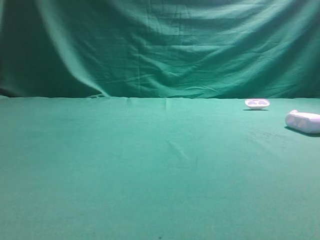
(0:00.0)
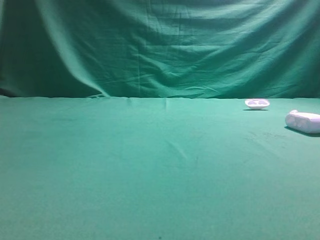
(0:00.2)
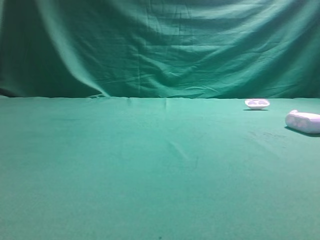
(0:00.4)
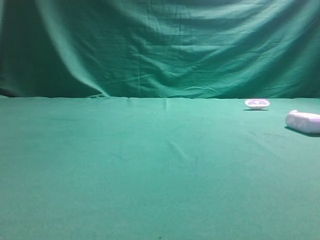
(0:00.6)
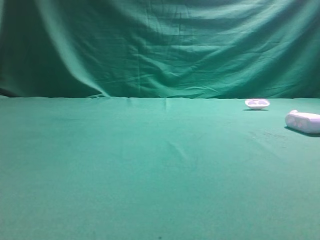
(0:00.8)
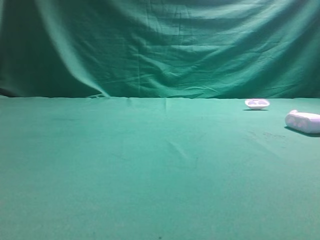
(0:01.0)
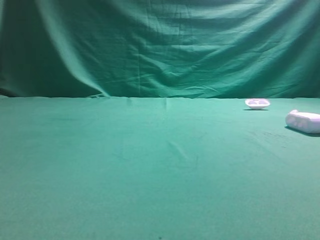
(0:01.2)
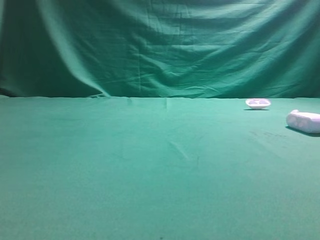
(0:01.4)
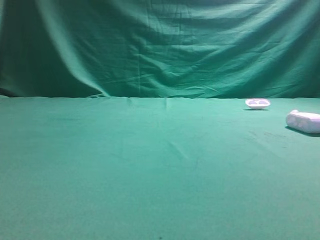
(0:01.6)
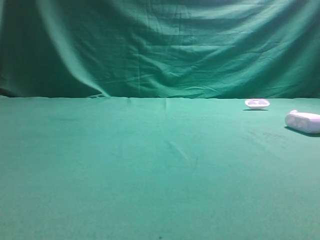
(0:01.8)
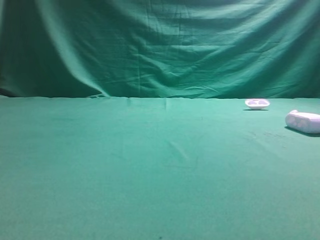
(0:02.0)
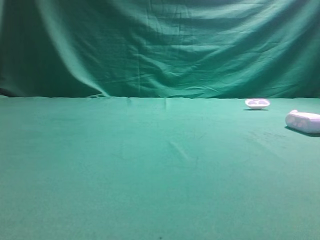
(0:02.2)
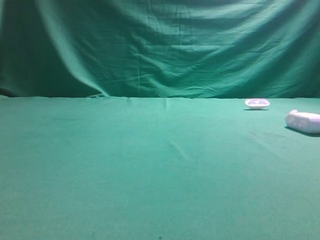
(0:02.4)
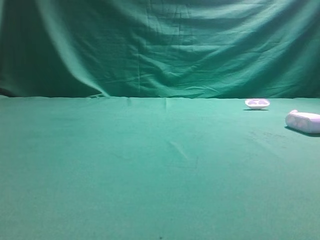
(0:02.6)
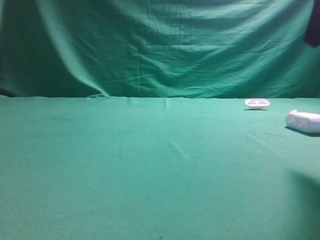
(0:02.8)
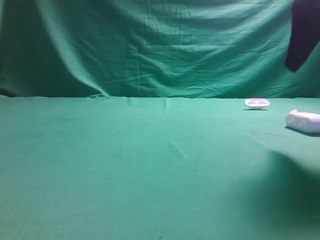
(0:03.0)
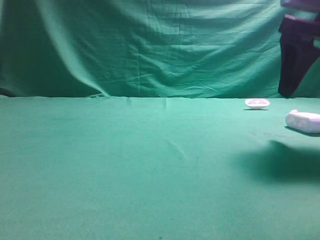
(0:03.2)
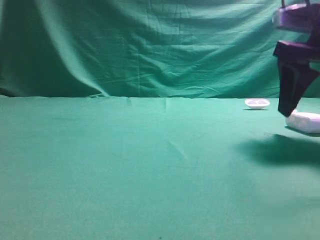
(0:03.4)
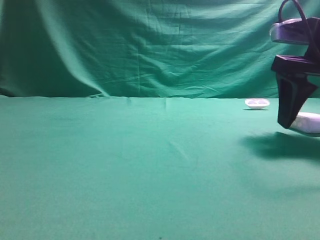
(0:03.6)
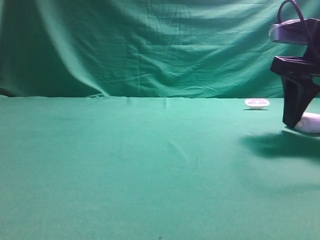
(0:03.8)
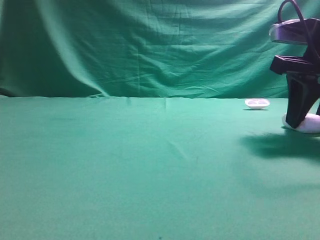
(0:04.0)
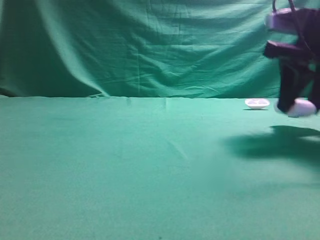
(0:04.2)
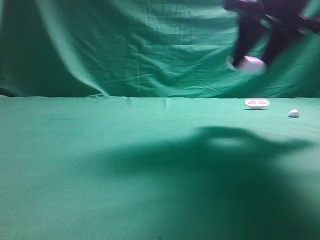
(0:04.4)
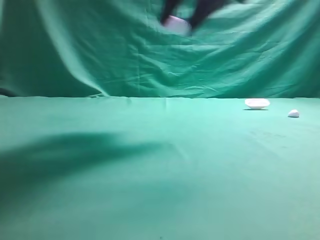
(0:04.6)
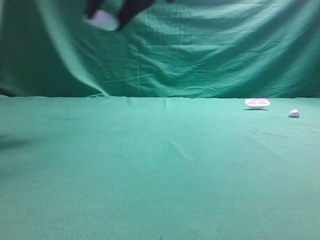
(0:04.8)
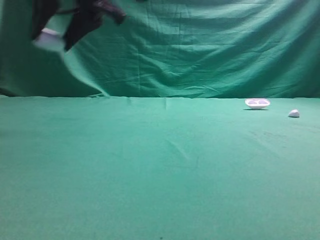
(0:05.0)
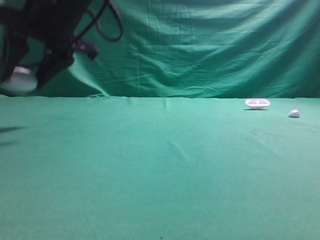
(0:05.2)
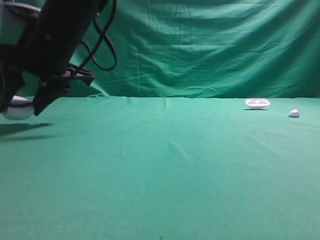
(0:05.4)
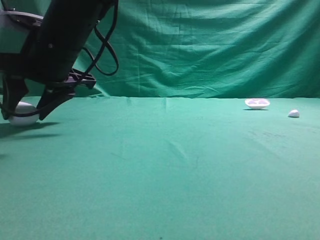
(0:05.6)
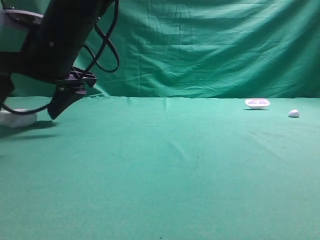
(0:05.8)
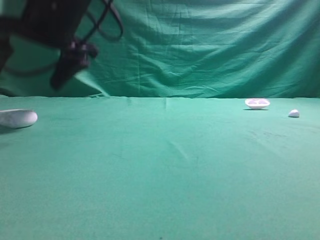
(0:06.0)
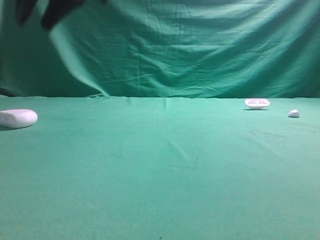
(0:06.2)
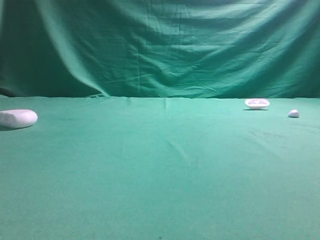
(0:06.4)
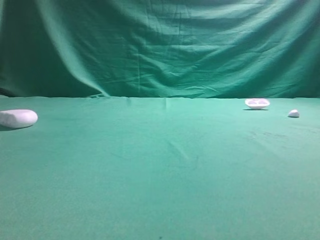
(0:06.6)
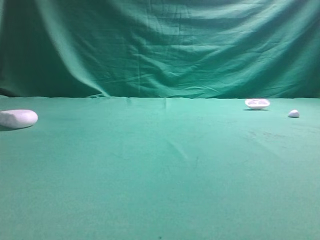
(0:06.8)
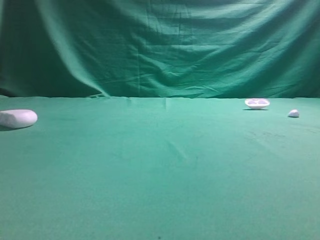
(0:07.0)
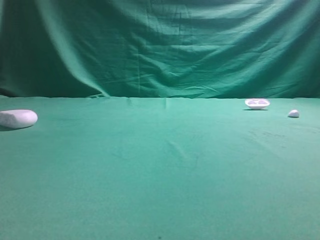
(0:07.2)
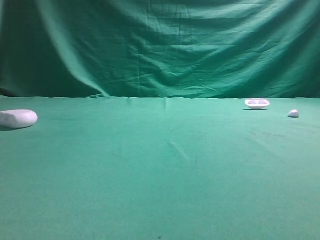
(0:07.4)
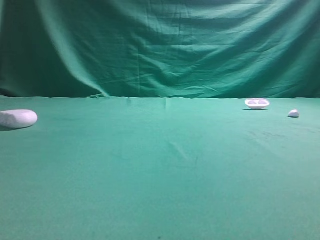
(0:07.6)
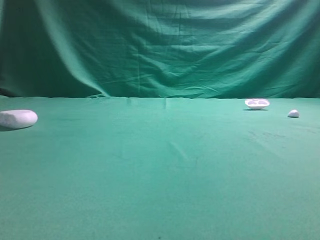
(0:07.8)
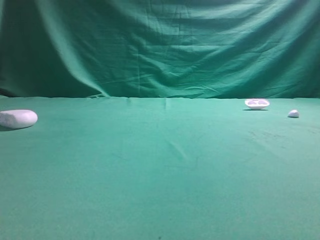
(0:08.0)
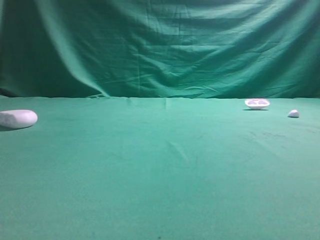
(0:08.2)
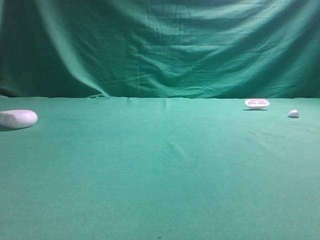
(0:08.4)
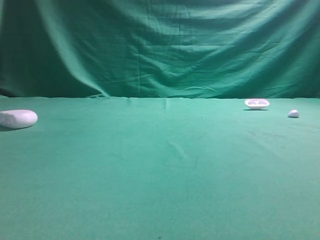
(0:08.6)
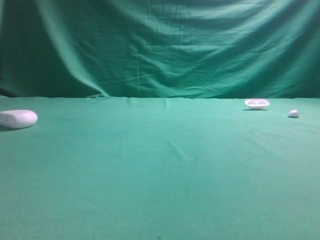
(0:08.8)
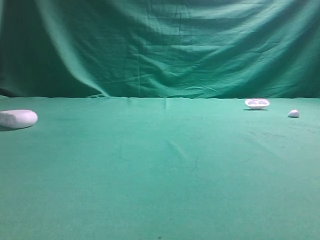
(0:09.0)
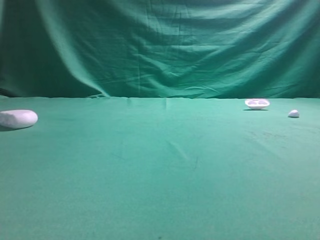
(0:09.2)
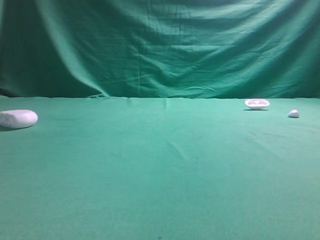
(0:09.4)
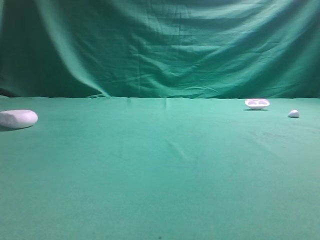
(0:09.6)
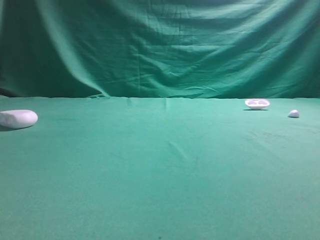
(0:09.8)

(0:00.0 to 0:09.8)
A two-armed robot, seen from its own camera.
Step, 0:00.0 - 0:04.2: Grasp the Bluetooth earphone case.
Step, 0:04.4 - 0:06.0: Place bluetooth earphone case on the left side of the table.

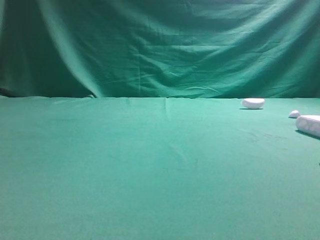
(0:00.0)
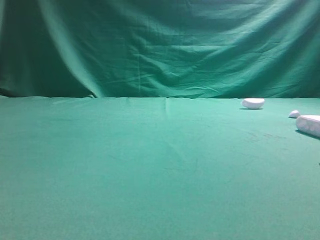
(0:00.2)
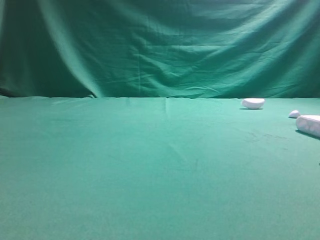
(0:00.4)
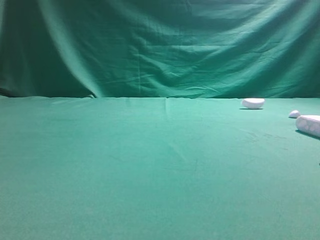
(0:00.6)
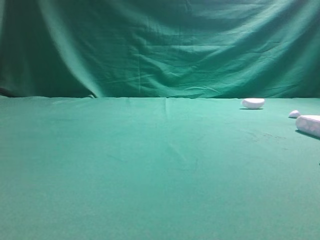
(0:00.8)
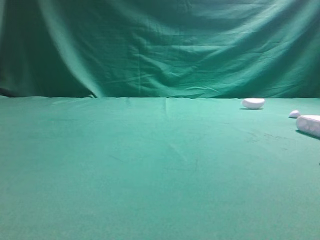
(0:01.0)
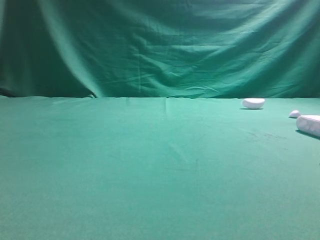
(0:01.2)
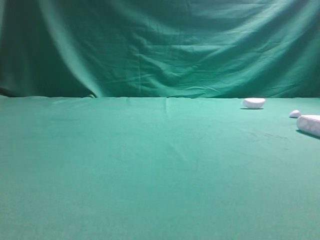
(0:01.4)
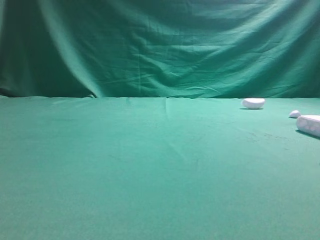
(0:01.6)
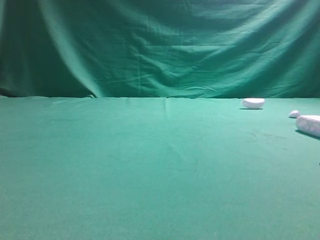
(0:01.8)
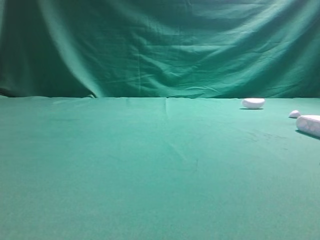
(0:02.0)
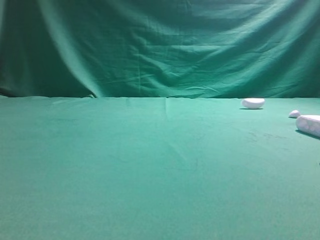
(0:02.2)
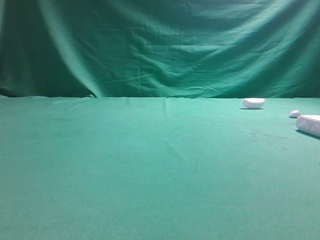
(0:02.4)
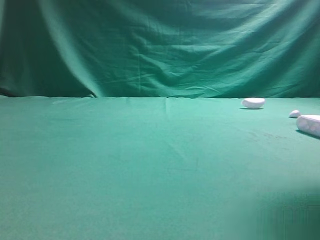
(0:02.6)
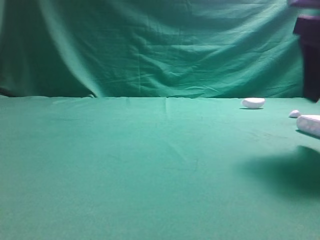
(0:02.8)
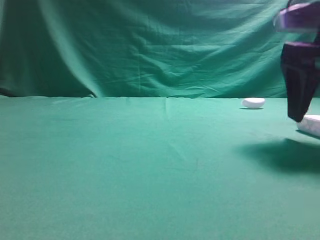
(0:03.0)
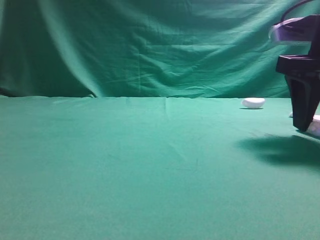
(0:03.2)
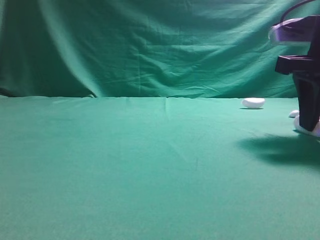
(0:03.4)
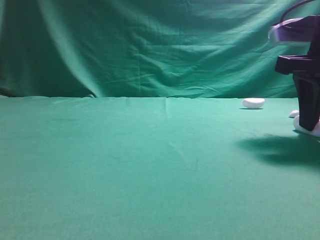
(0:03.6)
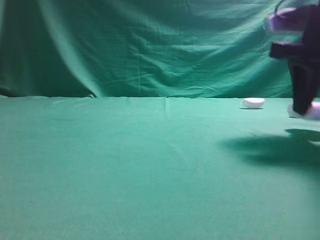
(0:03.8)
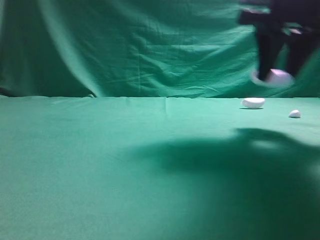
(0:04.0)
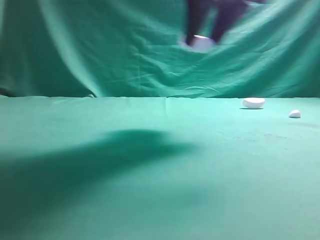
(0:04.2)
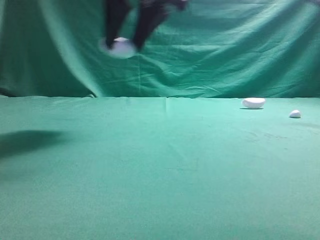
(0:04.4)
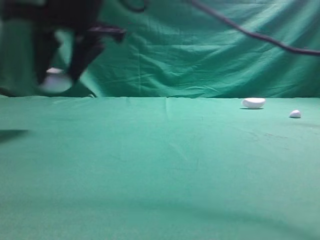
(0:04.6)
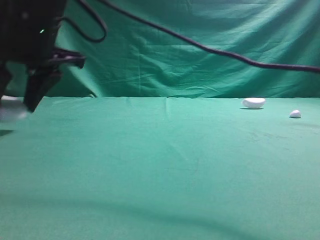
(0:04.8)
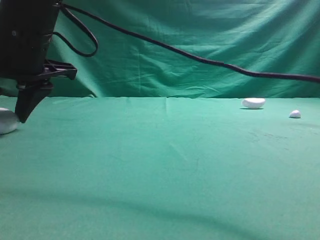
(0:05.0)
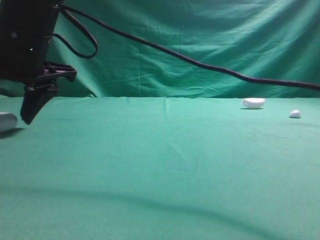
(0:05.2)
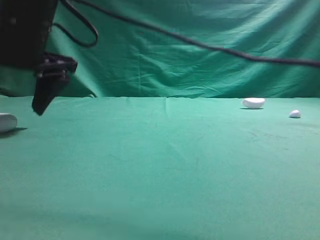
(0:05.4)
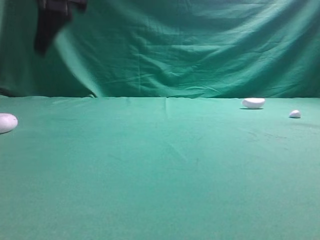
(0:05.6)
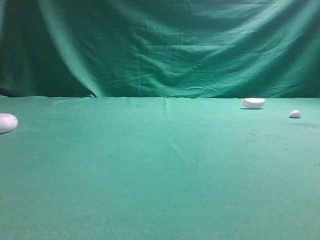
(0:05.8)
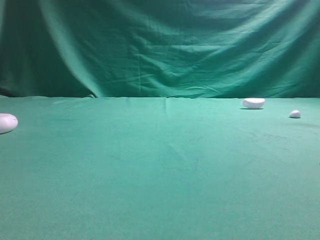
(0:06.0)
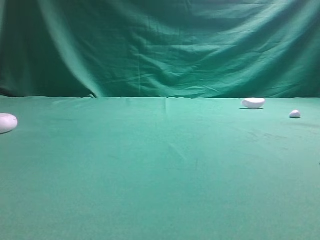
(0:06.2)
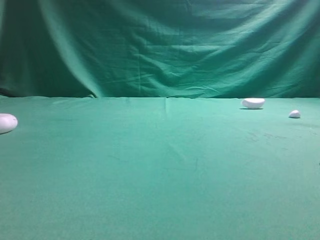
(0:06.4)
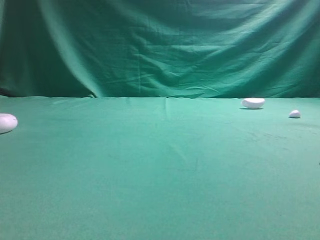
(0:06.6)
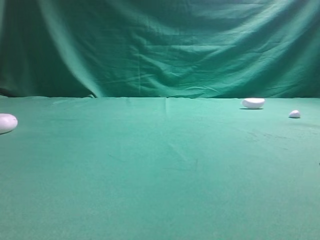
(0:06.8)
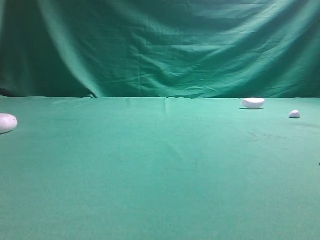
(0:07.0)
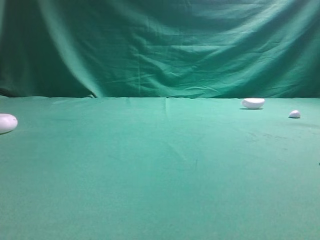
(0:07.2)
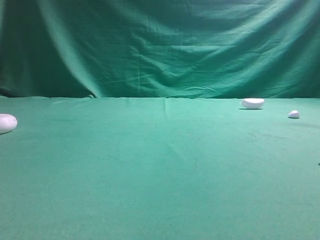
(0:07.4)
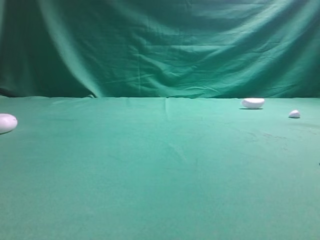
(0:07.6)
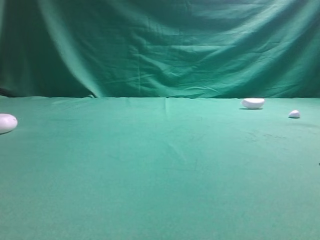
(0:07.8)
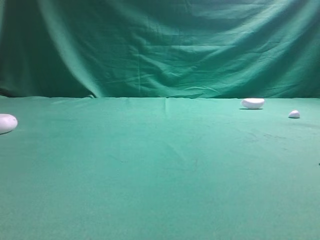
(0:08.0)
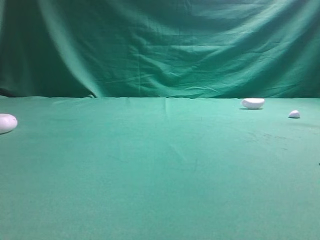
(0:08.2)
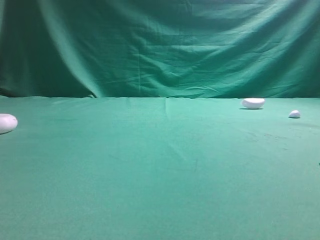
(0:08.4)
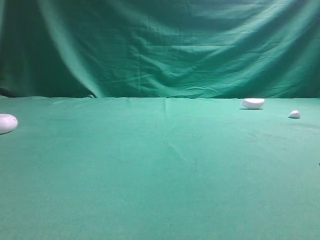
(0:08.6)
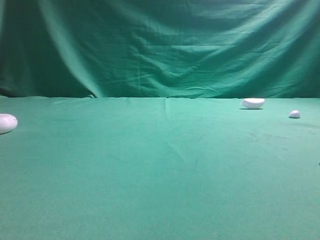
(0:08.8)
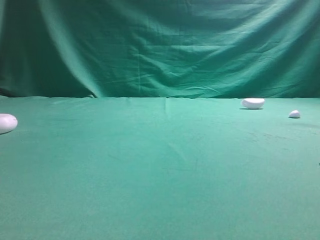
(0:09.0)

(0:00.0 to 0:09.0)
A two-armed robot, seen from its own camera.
Step, 0:00.0 - 0:04.0: Grasp the Bluetooth earphone case.
Step, 0:04.2 - 0:05.4: Place bluetooth earphone case on the left side of the table.

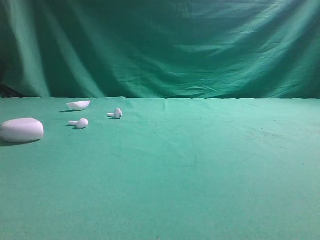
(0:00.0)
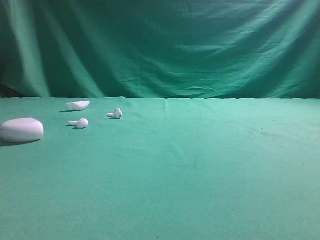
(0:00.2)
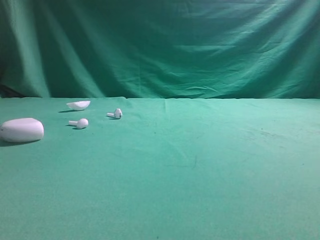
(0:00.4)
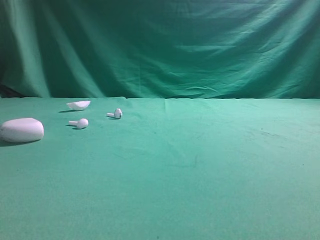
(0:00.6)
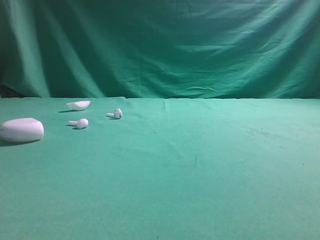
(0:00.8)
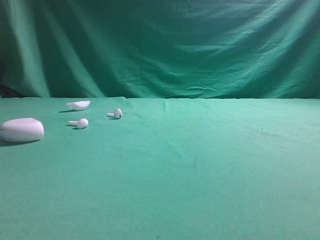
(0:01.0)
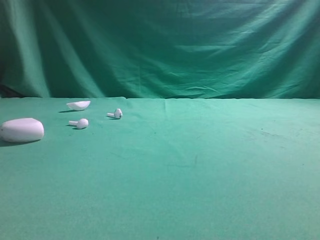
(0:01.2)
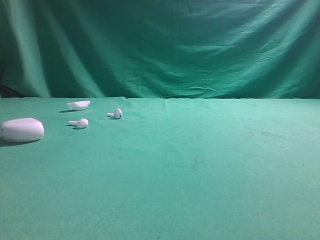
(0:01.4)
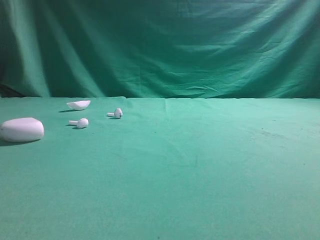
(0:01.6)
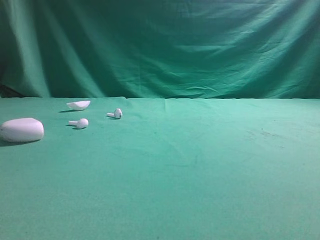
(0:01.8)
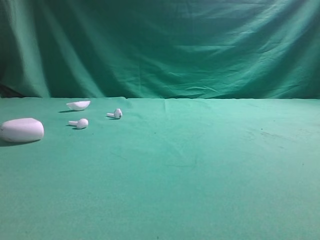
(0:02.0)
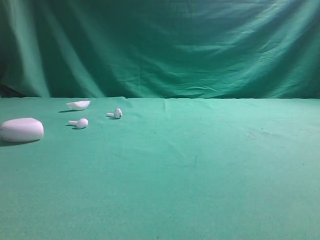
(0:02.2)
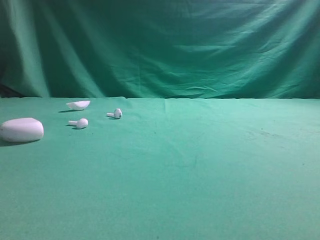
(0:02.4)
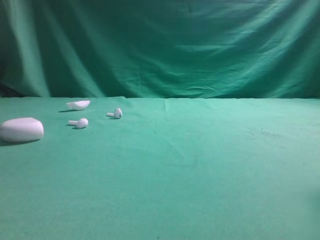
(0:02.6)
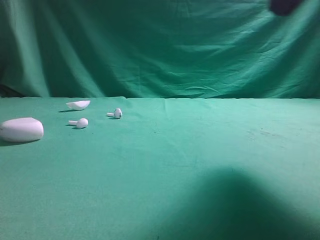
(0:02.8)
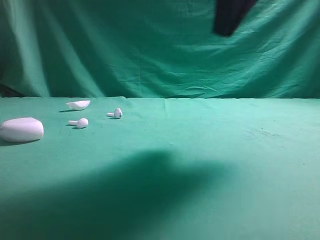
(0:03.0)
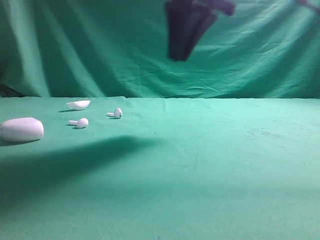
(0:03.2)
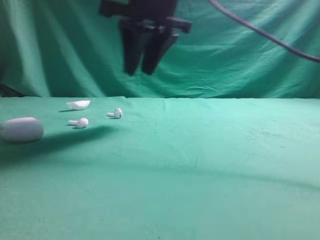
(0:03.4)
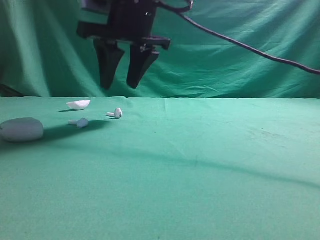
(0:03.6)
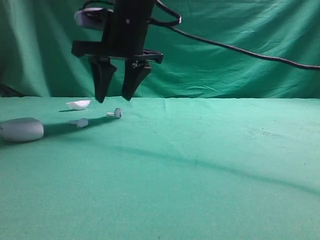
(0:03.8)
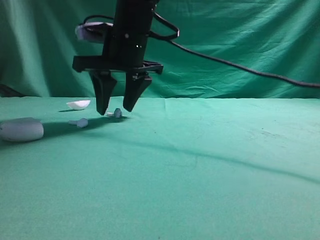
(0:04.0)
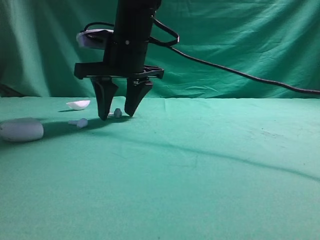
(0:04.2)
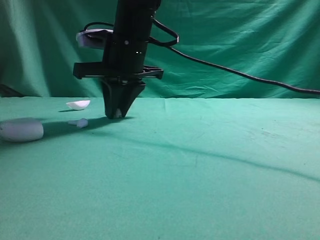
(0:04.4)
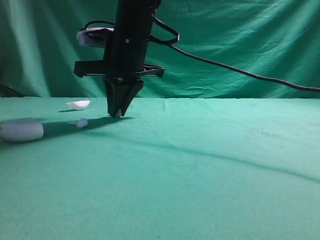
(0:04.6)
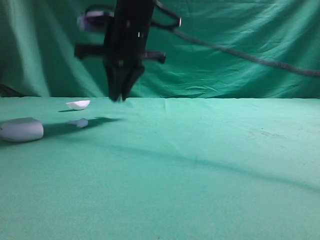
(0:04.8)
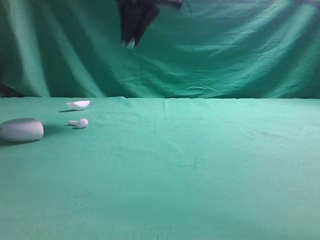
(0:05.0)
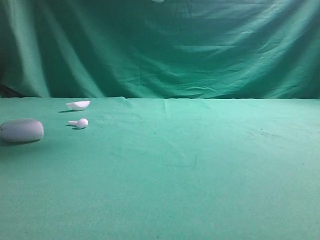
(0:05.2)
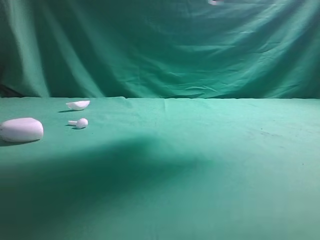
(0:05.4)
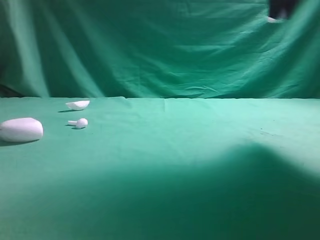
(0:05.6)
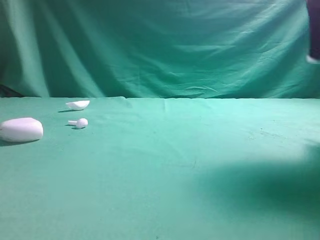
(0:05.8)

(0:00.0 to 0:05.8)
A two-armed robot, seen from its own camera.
Step, 0:00.0 - 0:04.8: Grasp the Bluetooth earbud.
